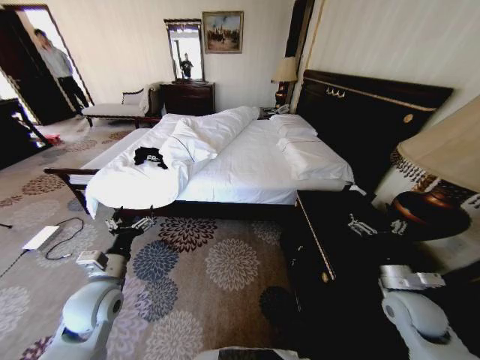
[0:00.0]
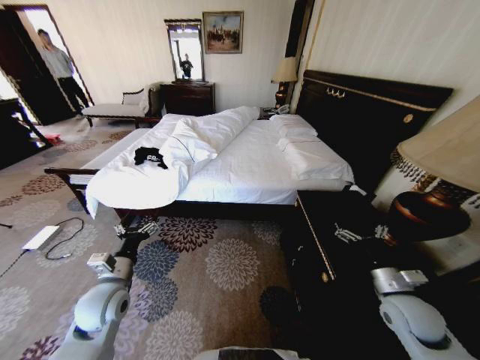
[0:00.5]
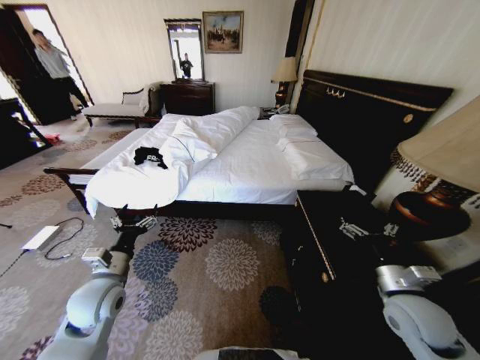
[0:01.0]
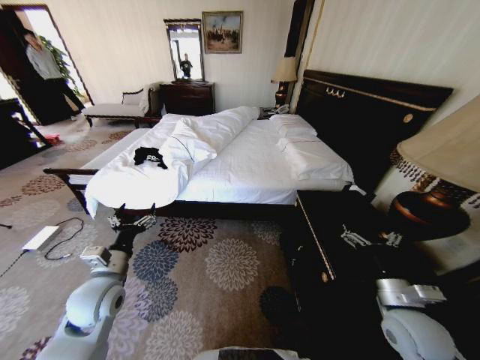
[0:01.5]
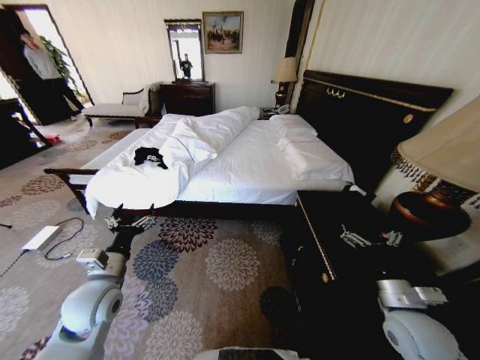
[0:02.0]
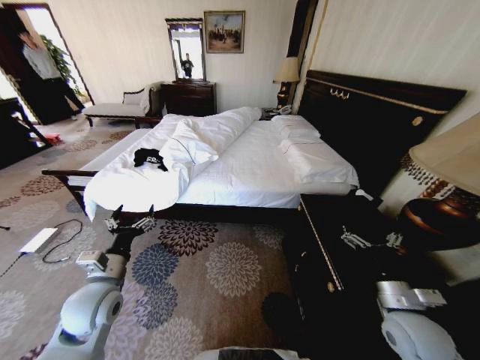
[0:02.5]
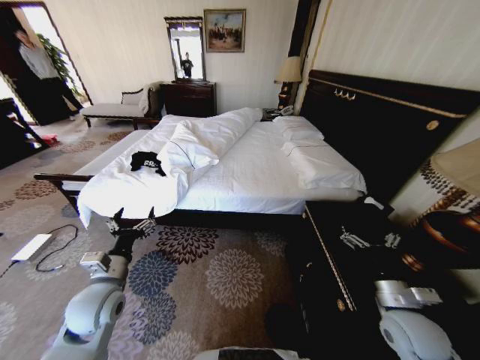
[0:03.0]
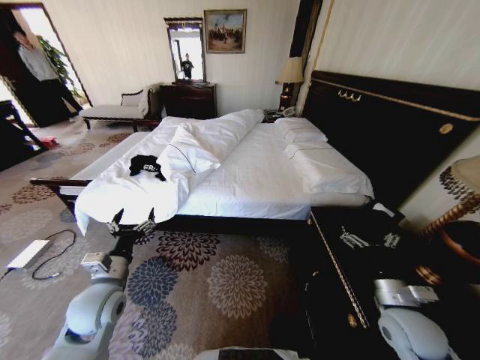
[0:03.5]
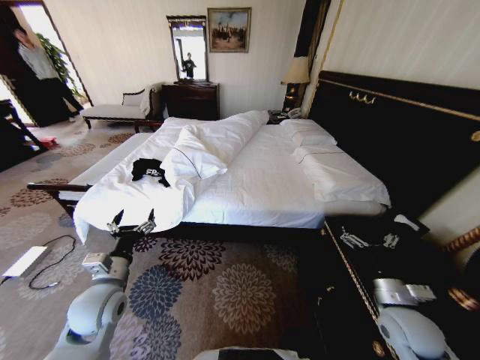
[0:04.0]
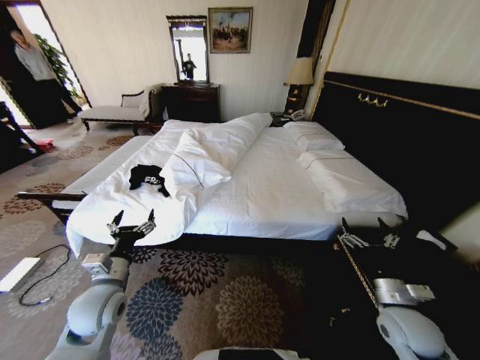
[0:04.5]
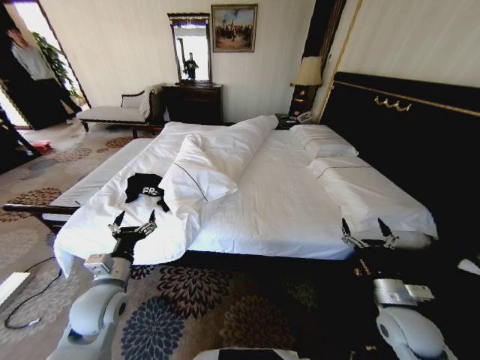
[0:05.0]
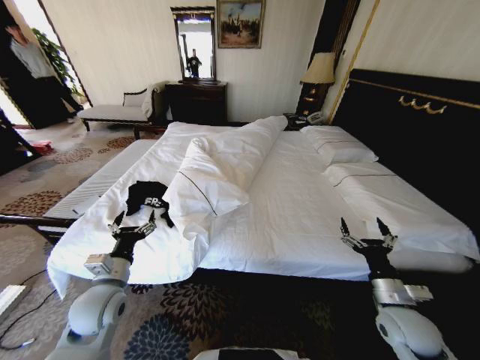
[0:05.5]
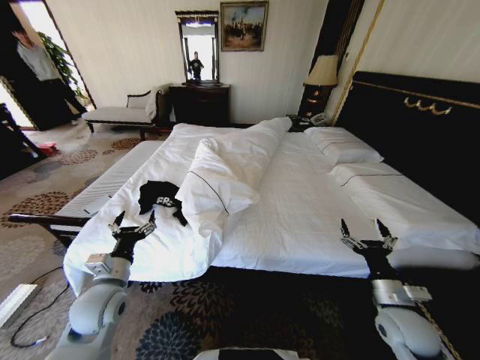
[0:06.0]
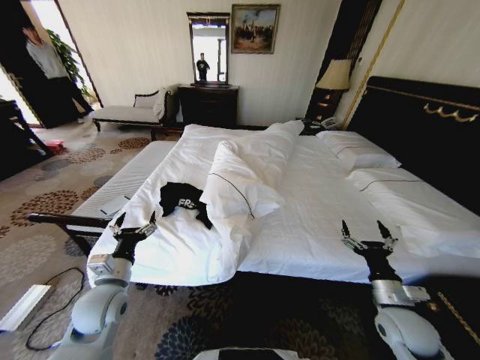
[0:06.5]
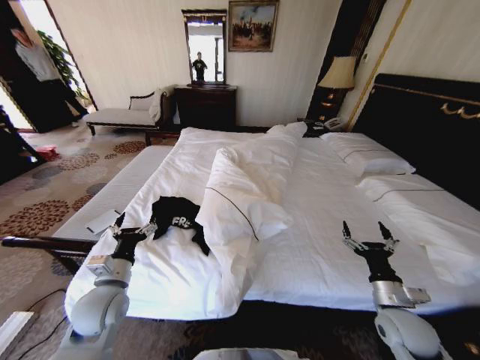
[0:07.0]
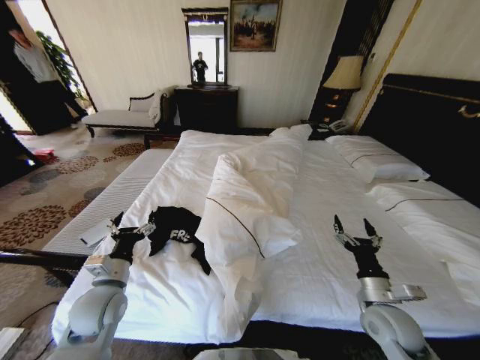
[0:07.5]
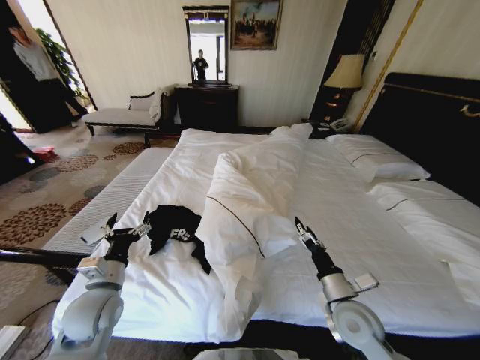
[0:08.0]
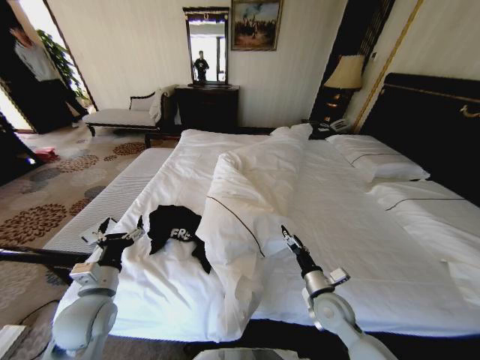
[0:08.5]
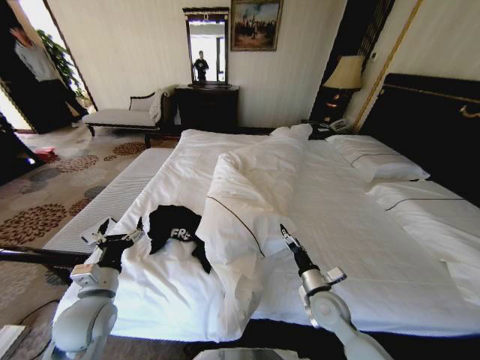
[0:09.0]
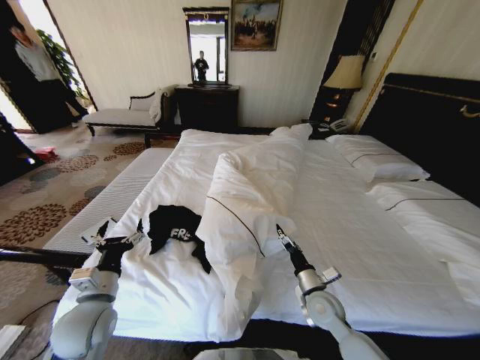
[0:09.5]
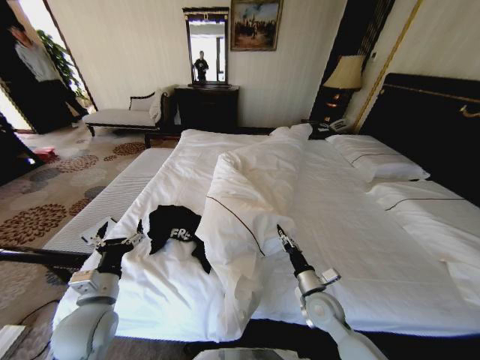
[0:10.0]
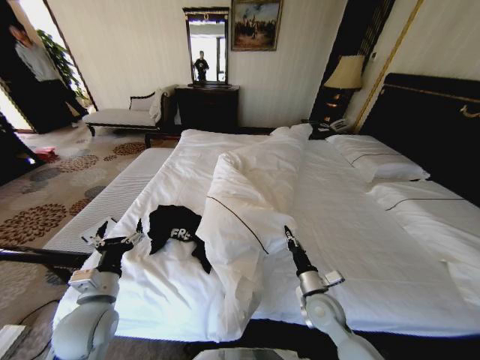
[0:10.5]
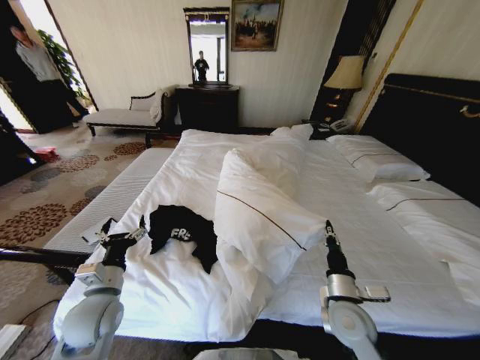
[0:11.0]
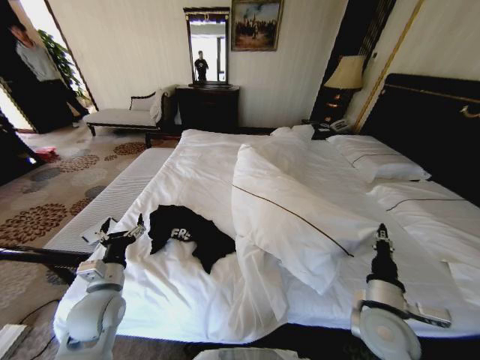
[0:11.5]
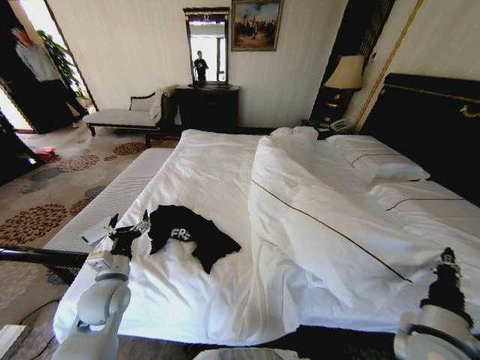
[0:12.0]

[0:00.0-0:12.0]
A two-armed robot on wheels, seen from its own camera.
Task of the whole recording: Fold the clothes on the bed.
0:06.0 to 0:08.0: The right gripper travels to the left by roughly 10 cm.
0:08.0 to 0:10.0: The right gripper heads downward, covering roughly 10 cm, and closes.
0:10.0 to 0:12.0: The left gripper heads forward, covering roughly 5 cm. Meanwhile the right gripper is displaced to the right, backward and upward by about 20 cm, and closes its fingers.

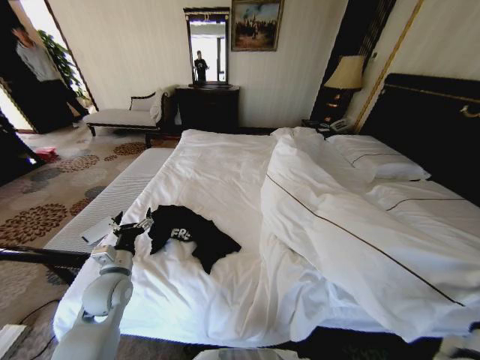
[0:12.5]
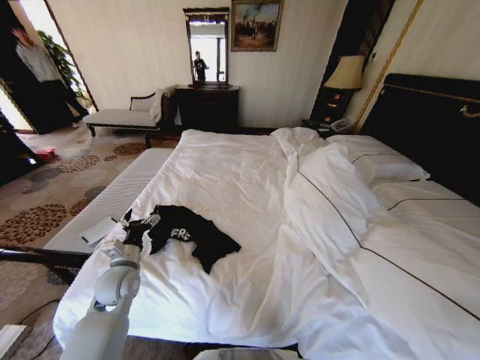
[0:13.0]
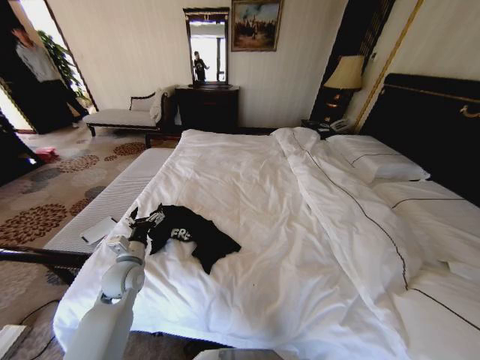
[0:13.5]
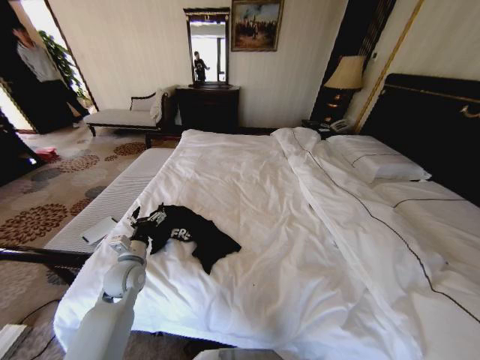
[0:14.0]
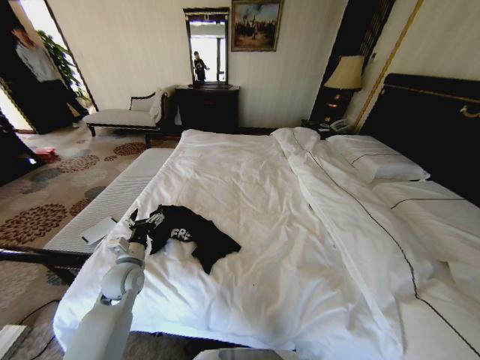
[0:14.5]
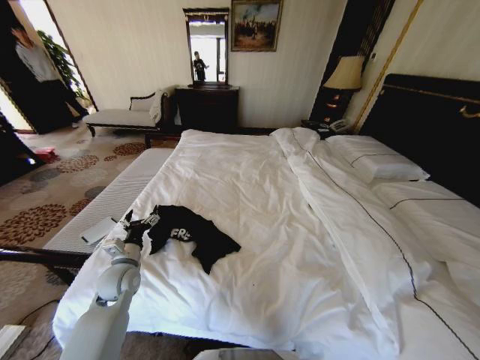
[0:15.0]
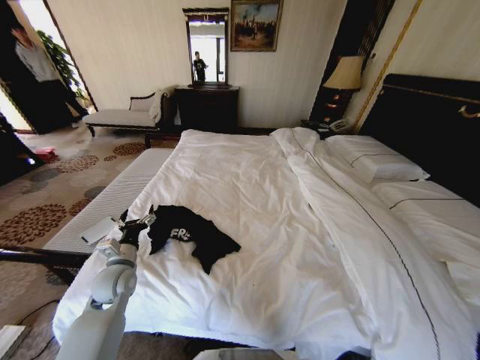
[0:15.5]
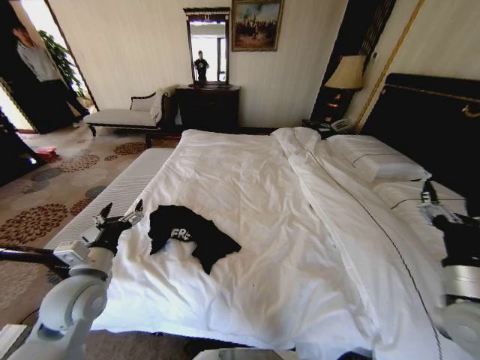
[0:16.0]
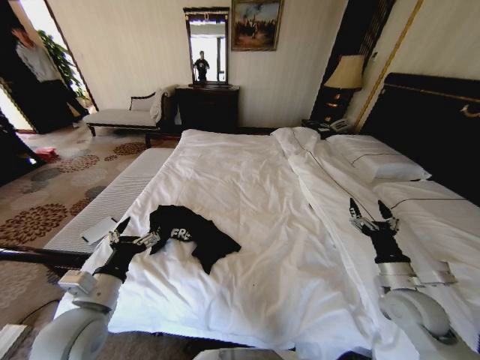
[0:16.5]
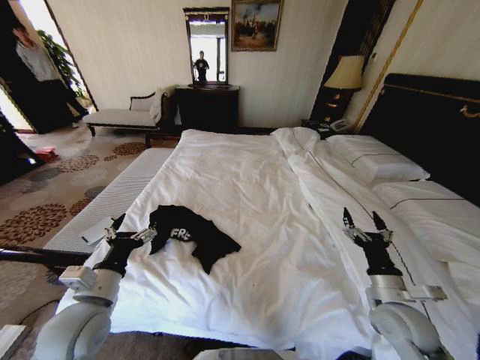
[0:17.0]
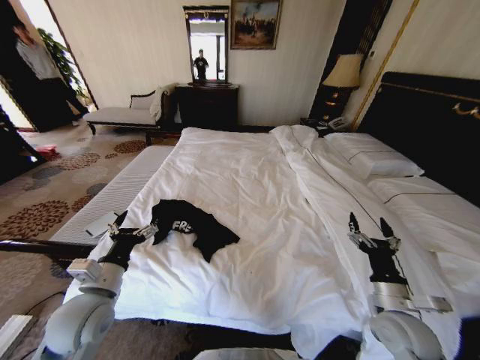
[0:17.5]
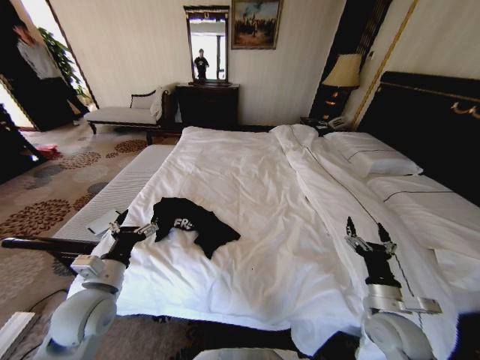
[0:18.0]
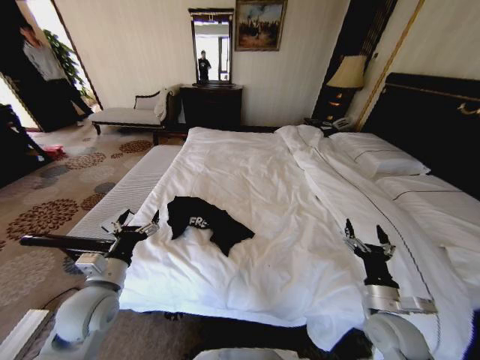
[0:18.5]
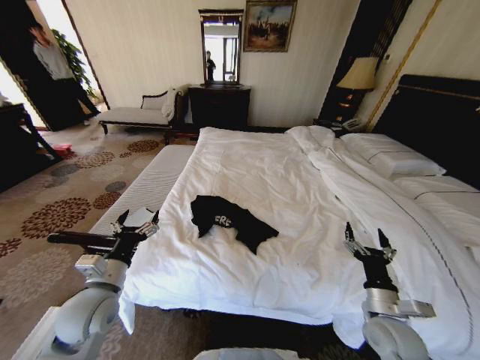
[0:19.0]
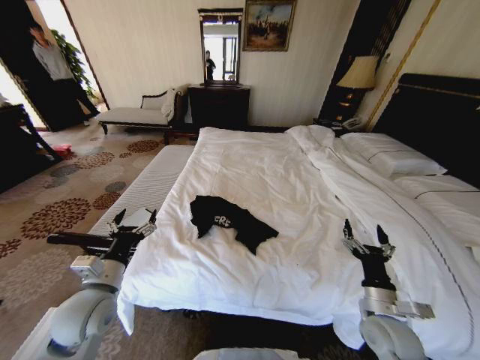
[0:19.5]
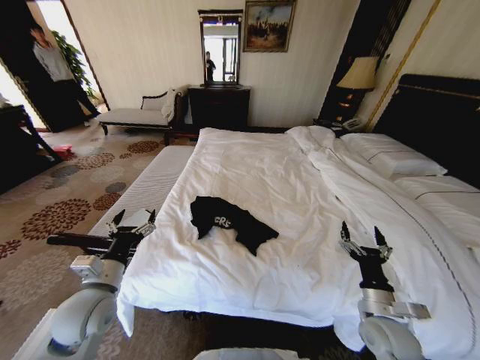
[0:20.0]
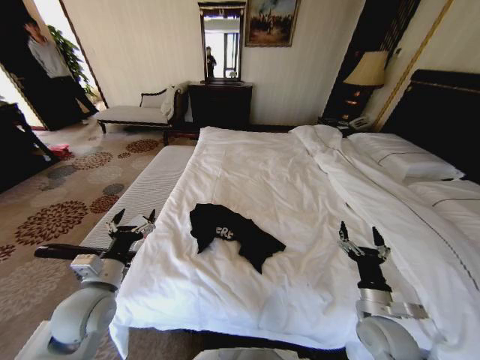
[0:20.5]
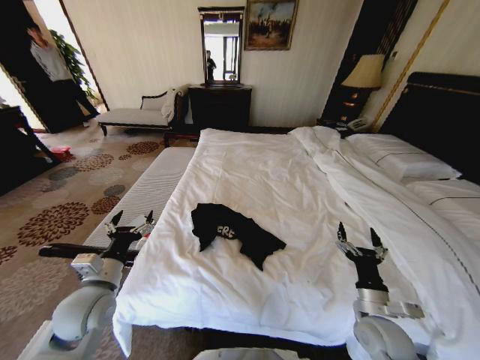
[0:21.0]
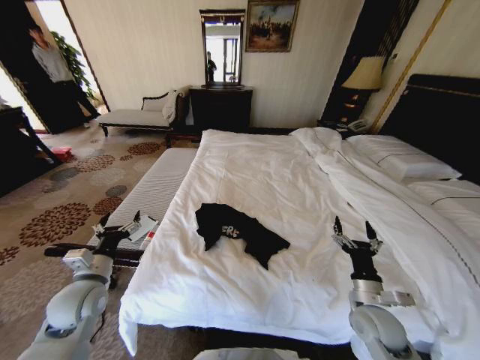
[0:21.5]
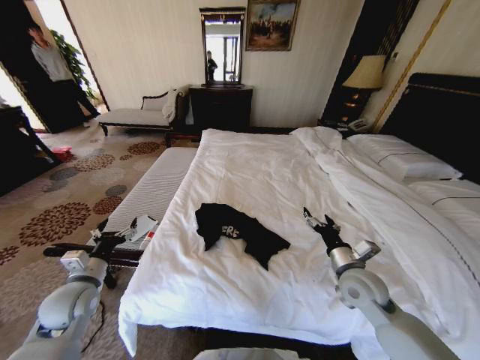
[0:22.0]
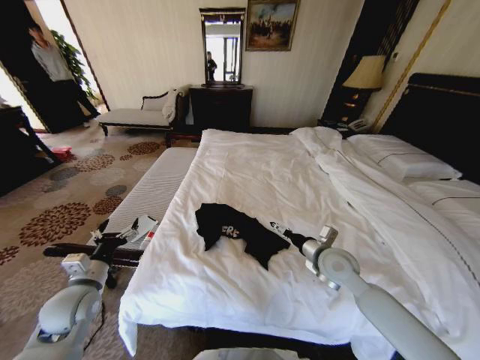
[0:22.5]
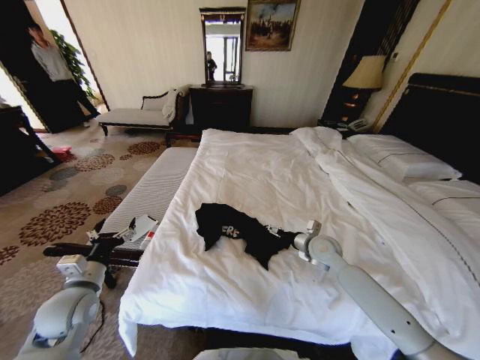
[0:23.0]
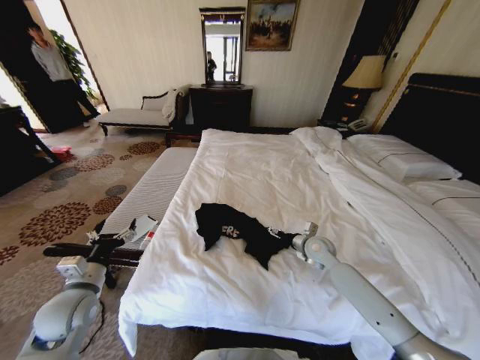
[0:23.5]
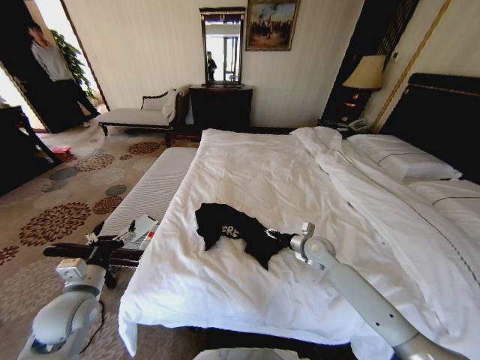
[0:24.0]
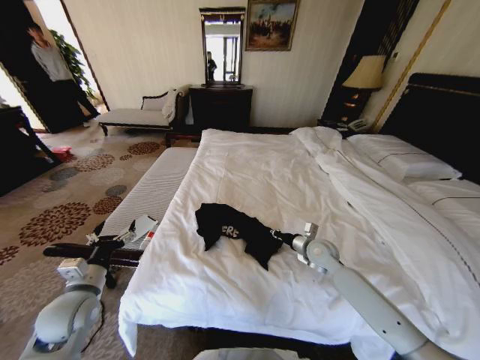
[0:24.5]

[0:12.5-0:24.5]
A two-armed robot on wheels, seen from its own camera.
Task of the whole recording: Fold the clothes on the bed.
0:12.5 to 0:14.5: The right gripper is displaced backward by roughly 15 cm.
0:14.5 to 0:16.5: The right gripper heads forward, covering roughly 25 cm, and opens up. The left gripper heads backward and upward, covering approximately 15 cm.
0:16.5 to 0:18.5: The right gripper travels downward by about 5 cm.
0:20.5 to 0:22.5: The left gripper heads to the left, covering some 5 cm; the right gripper goes some 20 cm forward, to the left and upward.
0:22.5 to 0:24.5: The right gripper is displaced forward and downward by roughly 10 cm, and closes.

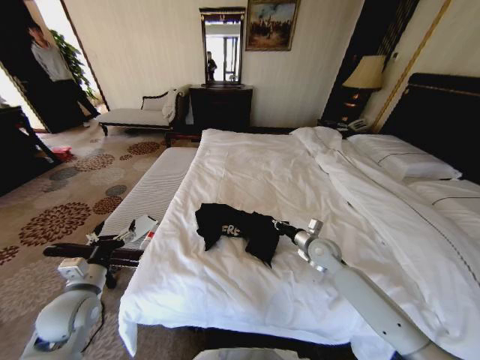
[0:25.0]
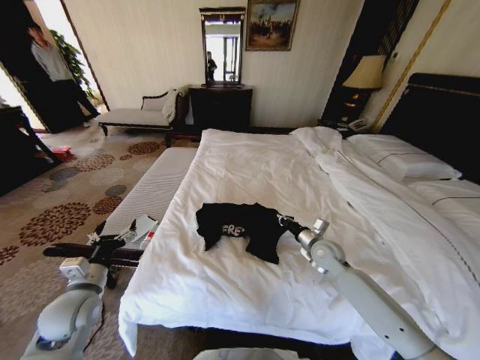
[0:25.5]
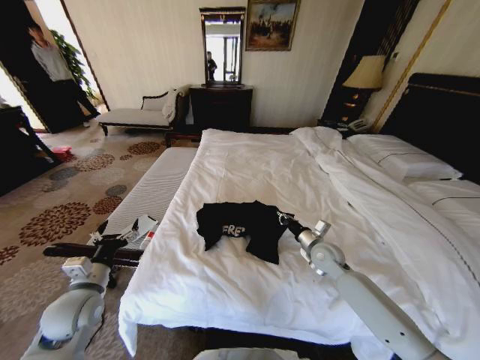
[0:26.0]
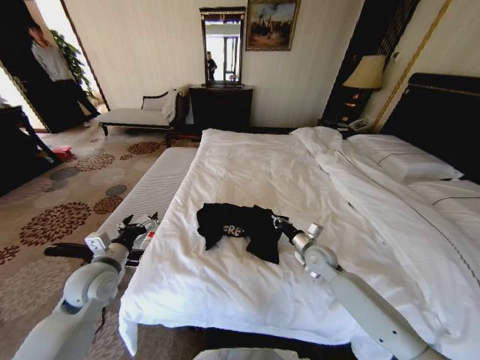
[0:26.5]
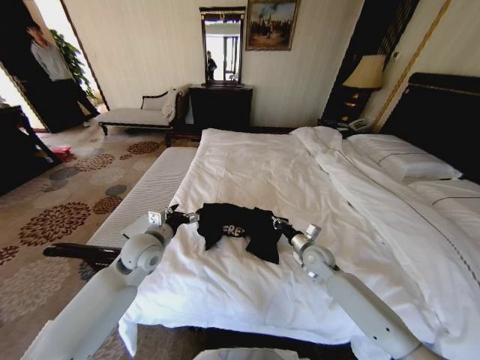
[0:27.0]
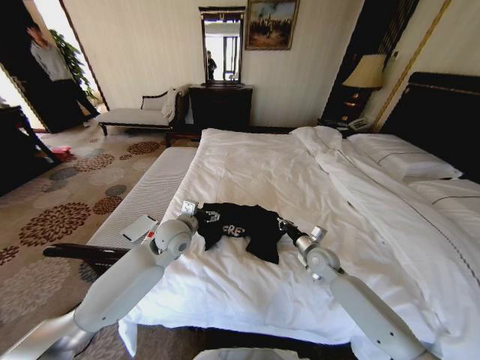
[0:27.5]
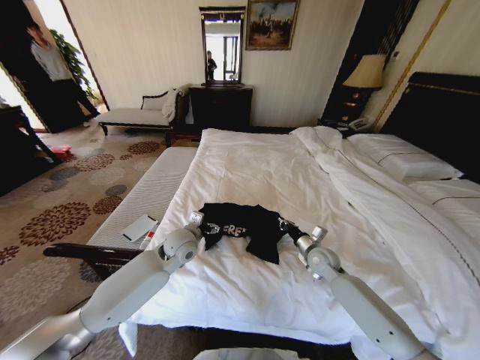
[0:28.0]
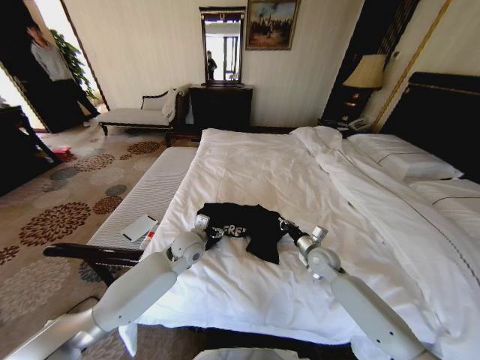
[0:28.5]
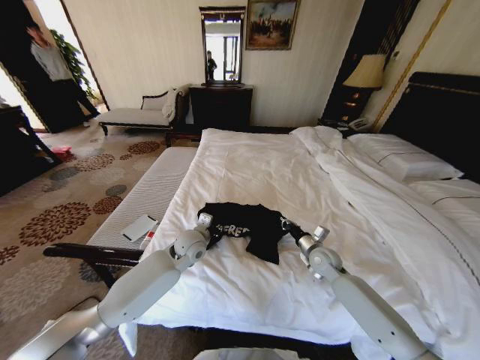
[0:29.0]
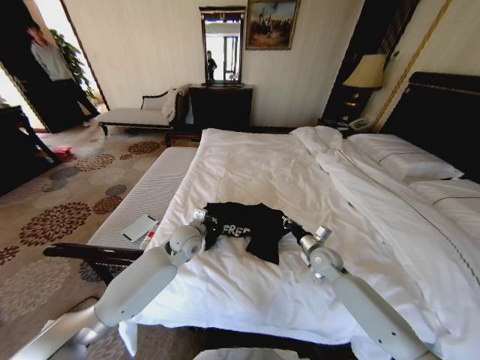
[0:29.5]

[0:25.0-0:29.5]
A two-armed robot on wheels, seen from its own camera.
Task of the whole recording: Fold the clothes on the bed.
0:25.0 to 0:27.0: The left gripper shifts some 15 cm to the right and forward.
0:27.0 to 0:29.5: The left gripper moves to the right and forward, approximately 10 cm, and closes its fingers.
